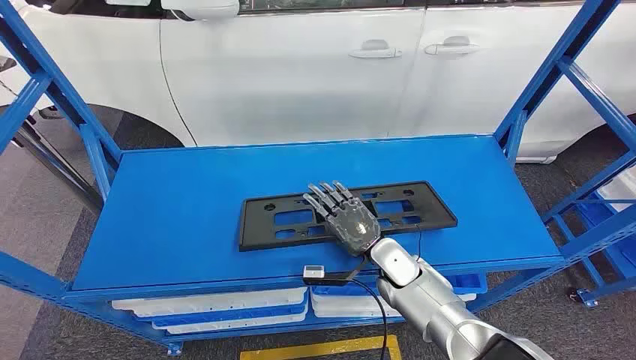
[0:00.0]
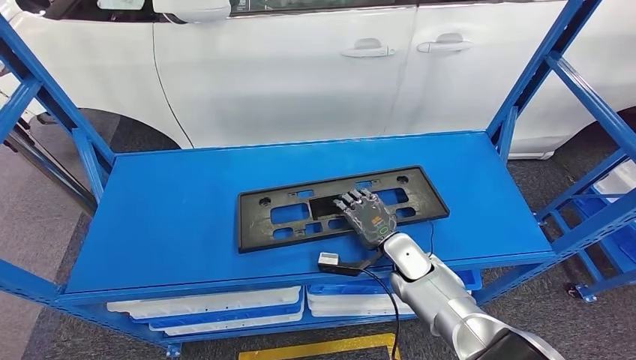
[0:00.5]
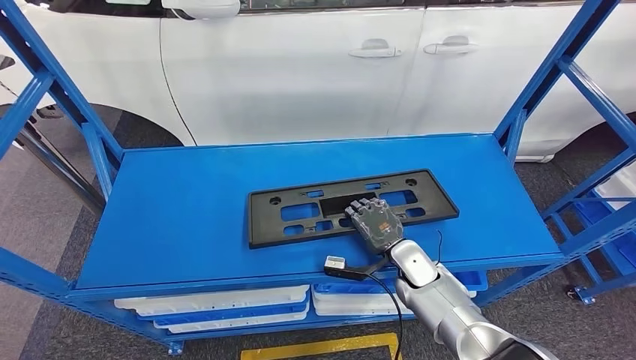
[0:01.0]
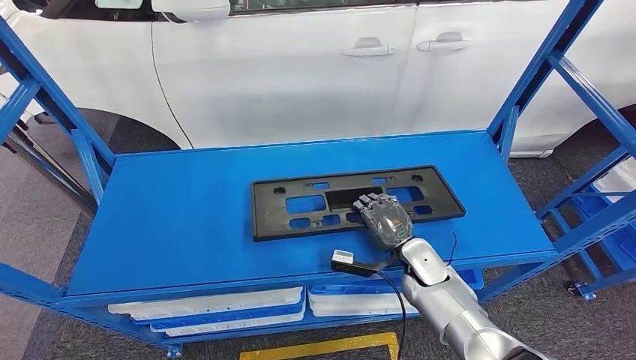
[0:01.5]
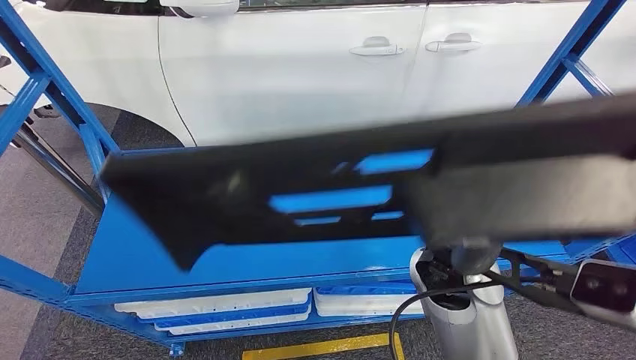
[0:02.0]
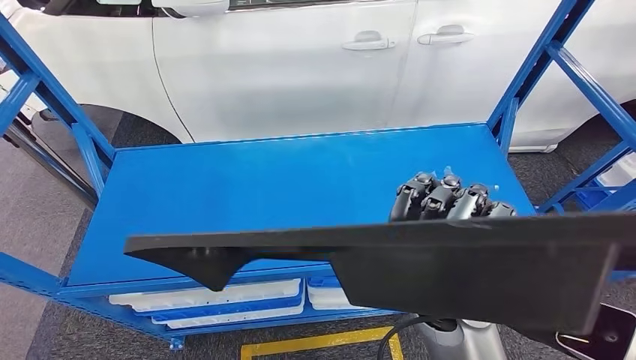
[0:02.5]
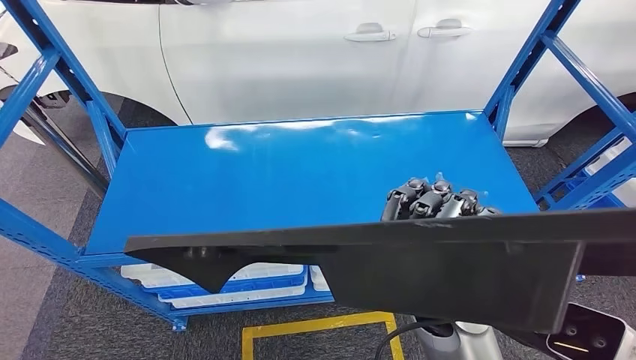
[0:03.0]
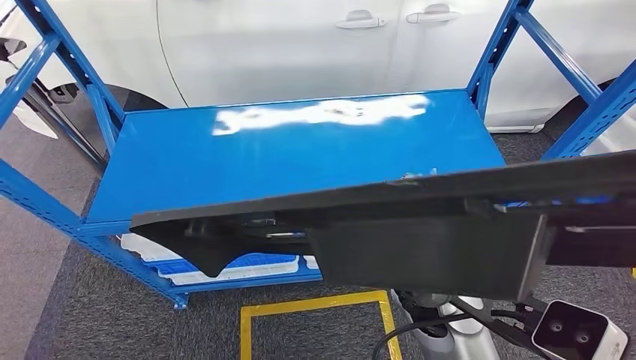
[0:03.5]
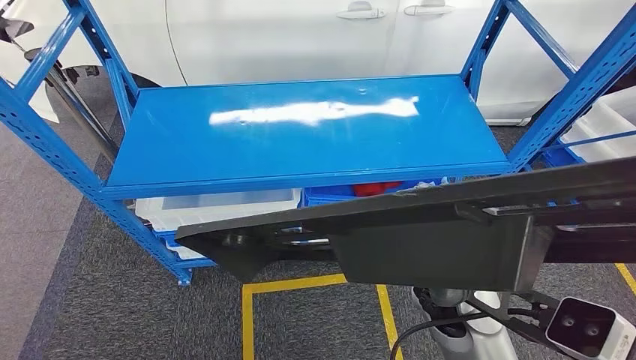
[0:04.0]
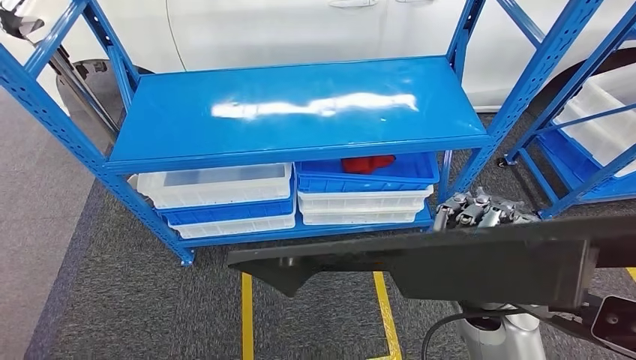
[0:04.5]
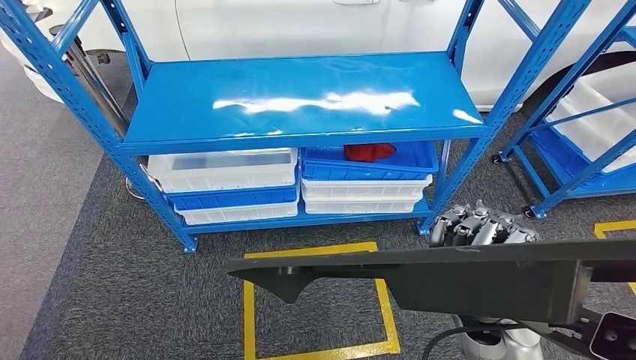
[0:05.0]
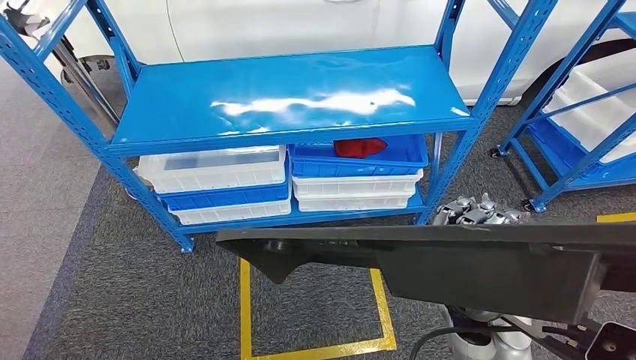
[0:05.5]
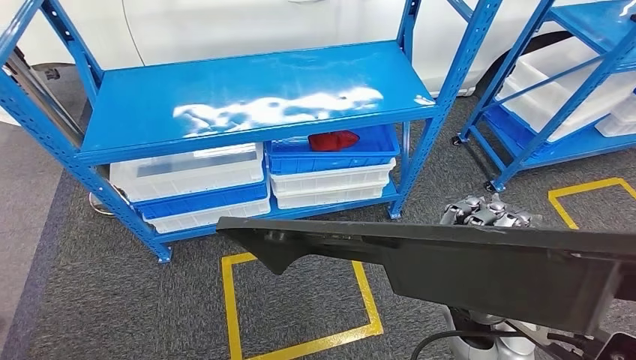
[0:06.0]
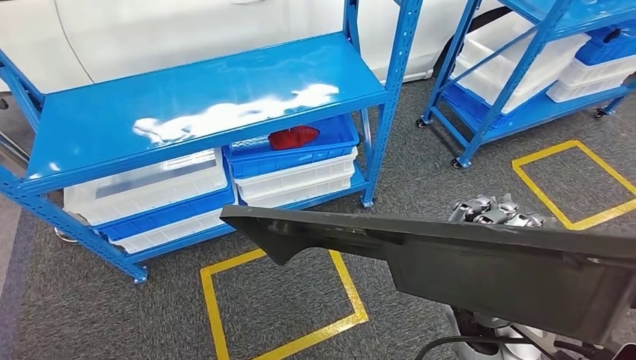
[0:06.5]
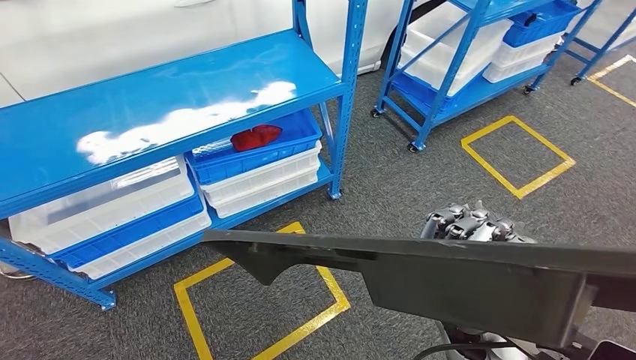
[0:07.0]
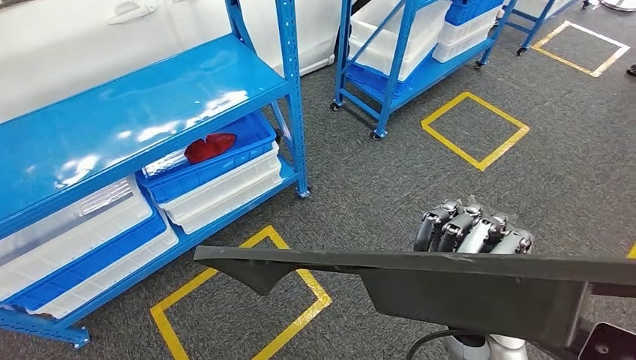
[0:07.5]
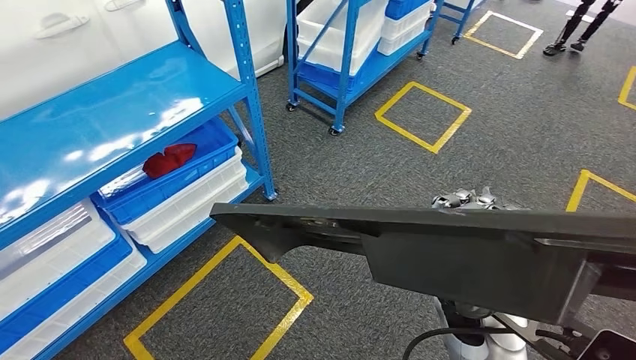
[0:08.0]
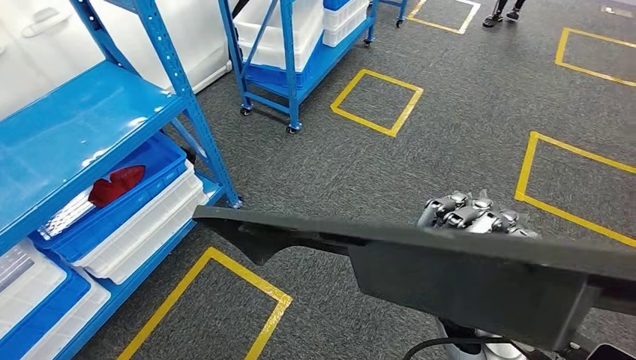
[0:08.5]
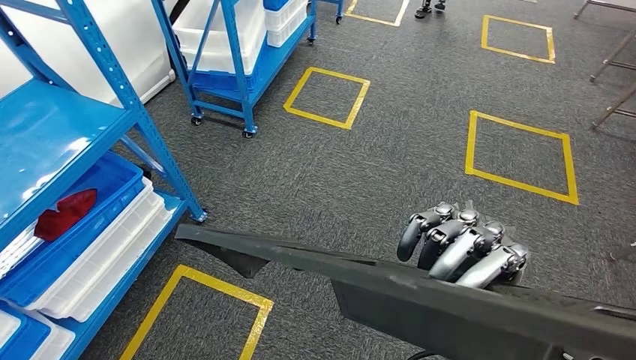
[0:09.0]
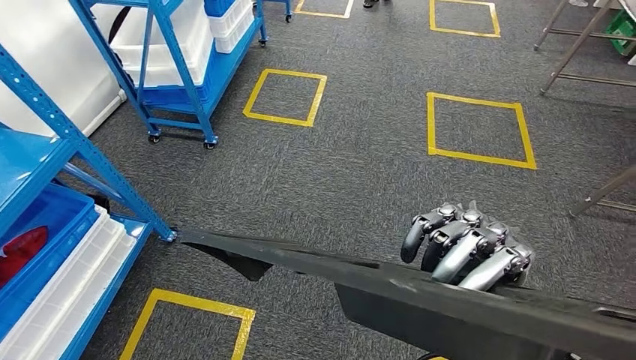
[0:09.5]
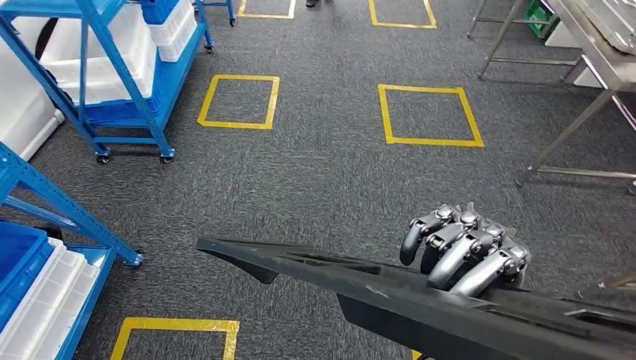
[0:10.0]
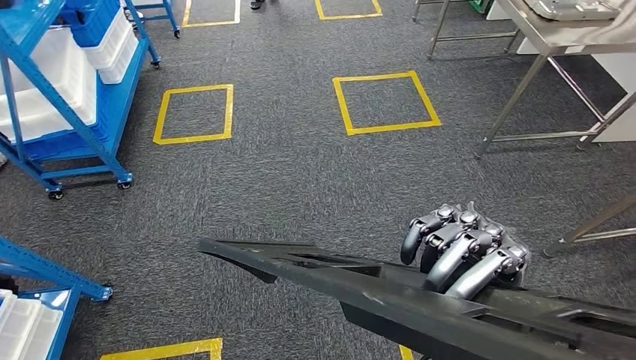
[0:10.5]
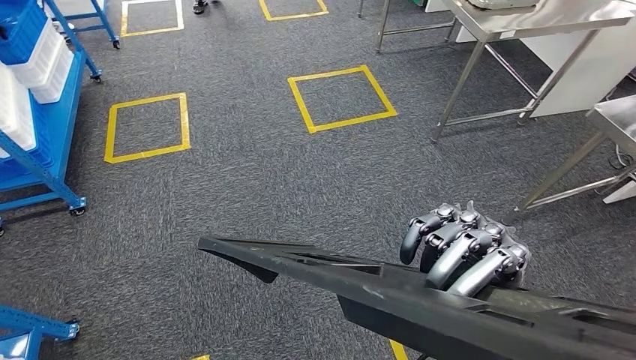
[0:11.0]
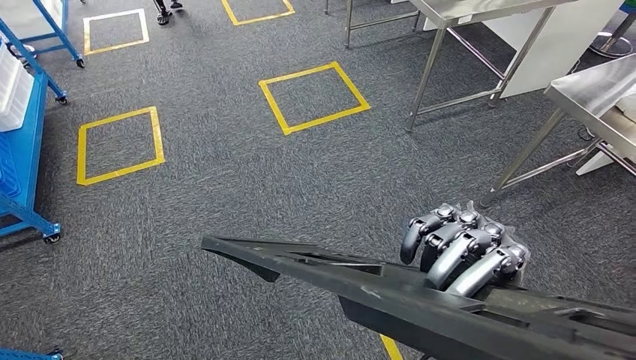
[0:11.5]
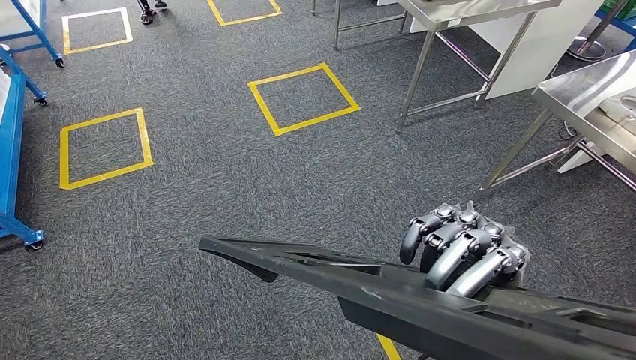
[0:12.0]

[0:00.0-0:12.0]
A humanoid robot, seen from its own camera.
Step, 0:00.0 to 0:03.5: Pick up the large material from the shelf.

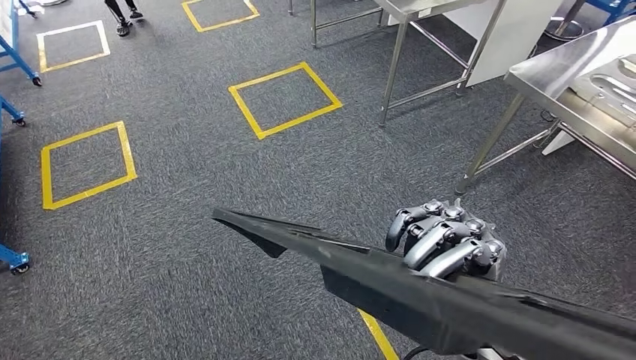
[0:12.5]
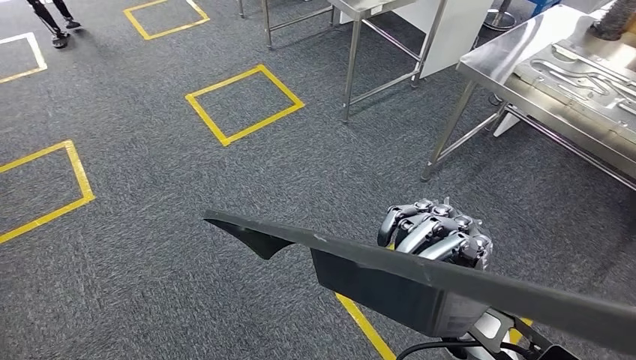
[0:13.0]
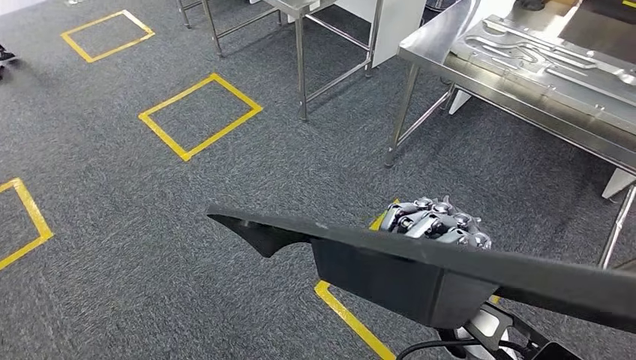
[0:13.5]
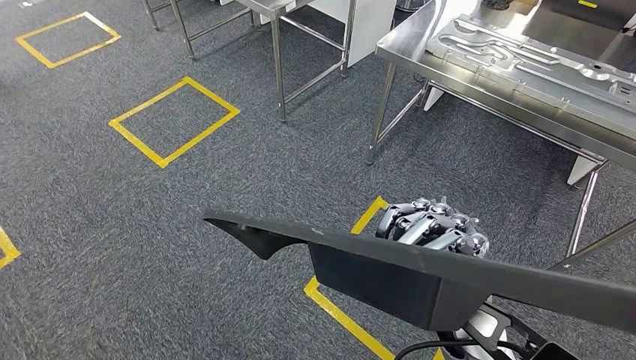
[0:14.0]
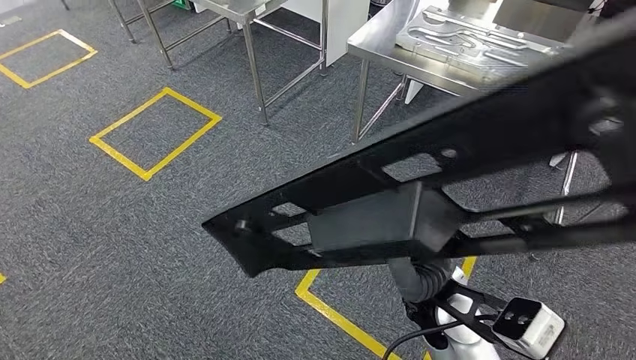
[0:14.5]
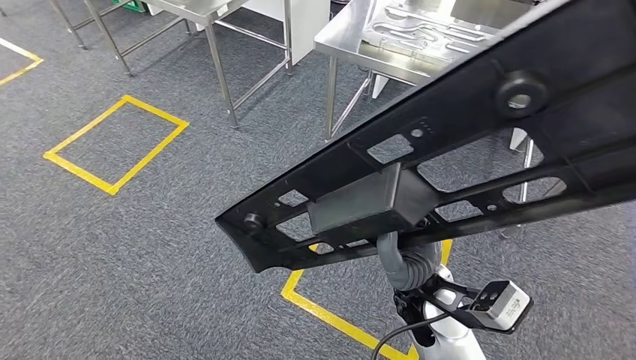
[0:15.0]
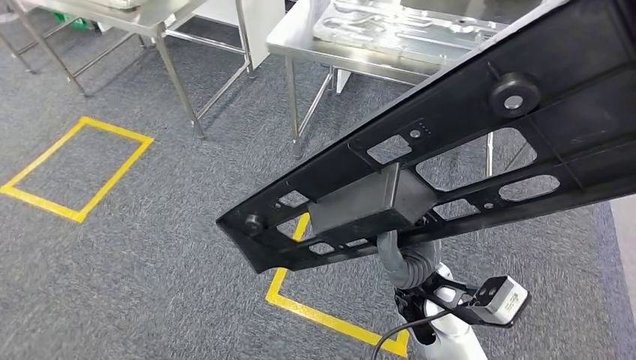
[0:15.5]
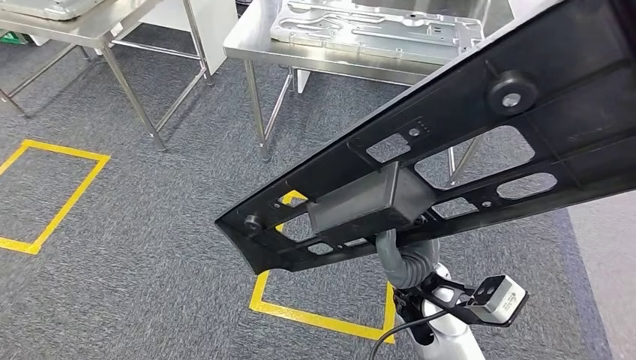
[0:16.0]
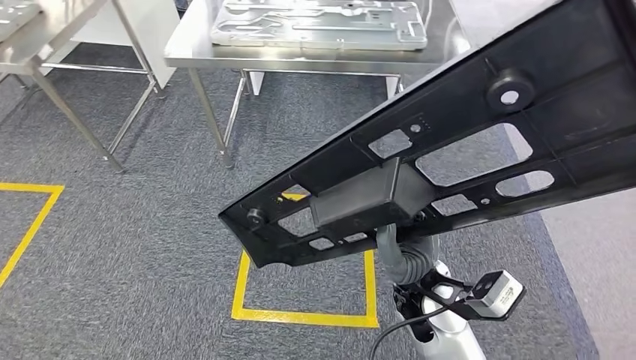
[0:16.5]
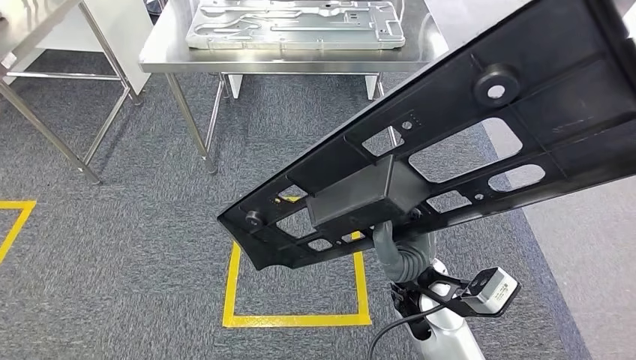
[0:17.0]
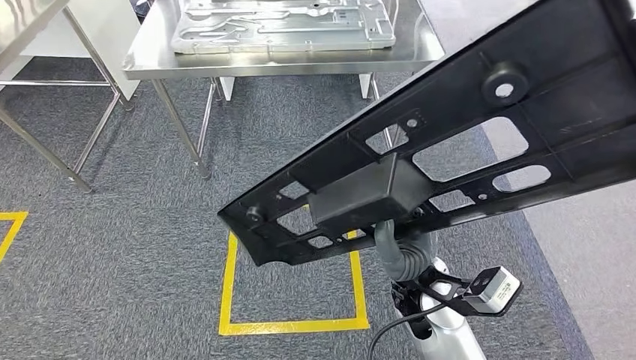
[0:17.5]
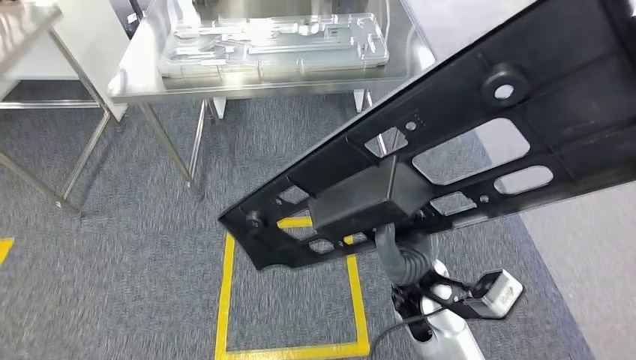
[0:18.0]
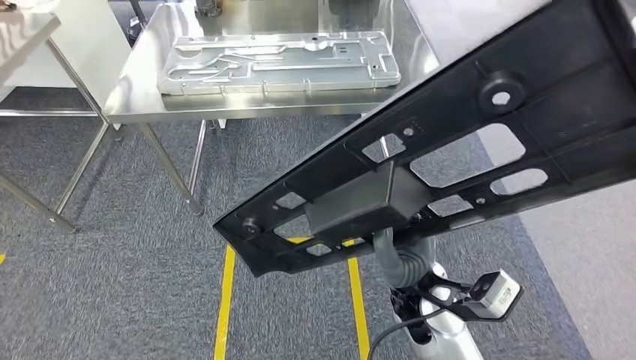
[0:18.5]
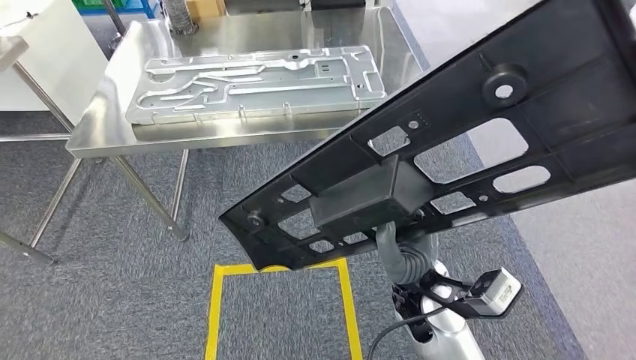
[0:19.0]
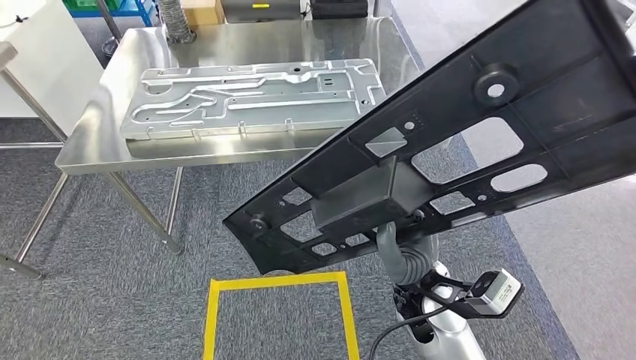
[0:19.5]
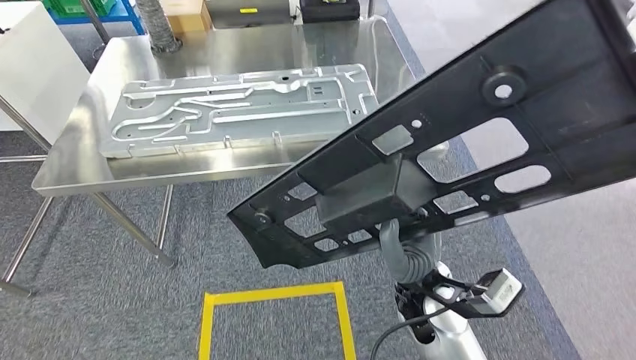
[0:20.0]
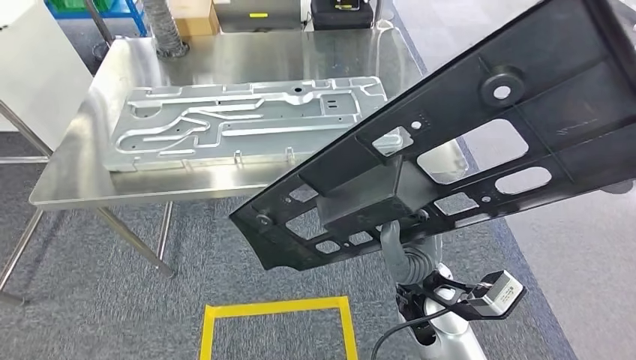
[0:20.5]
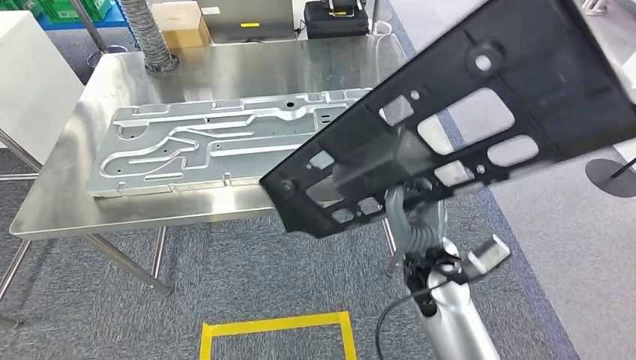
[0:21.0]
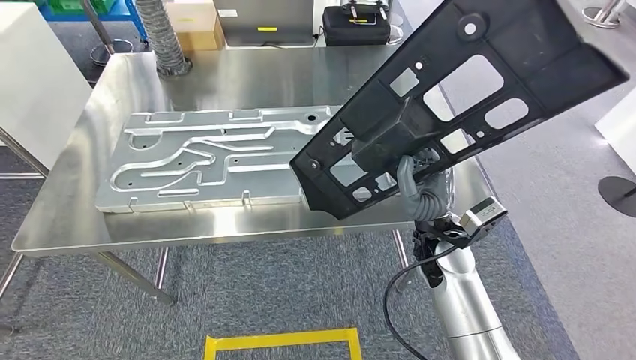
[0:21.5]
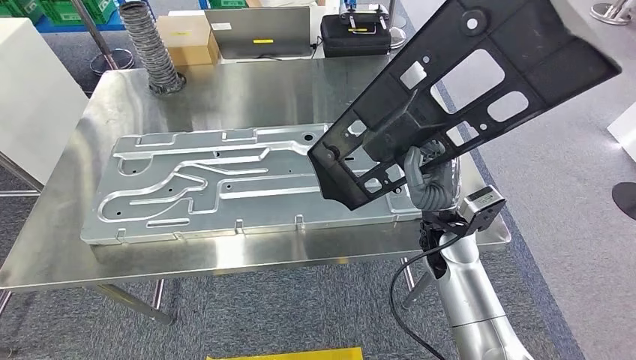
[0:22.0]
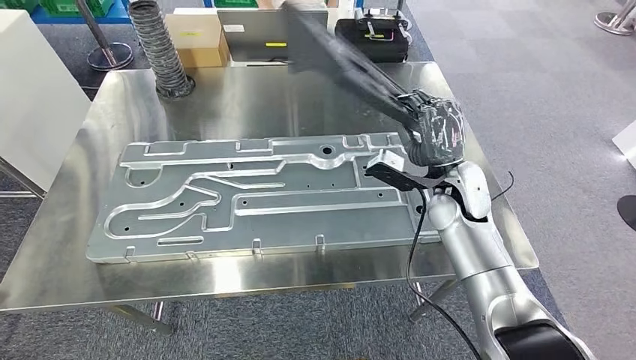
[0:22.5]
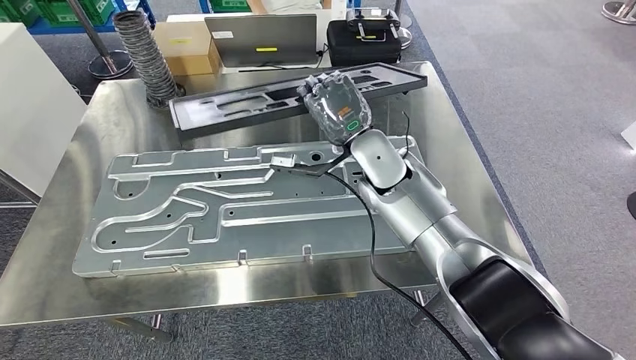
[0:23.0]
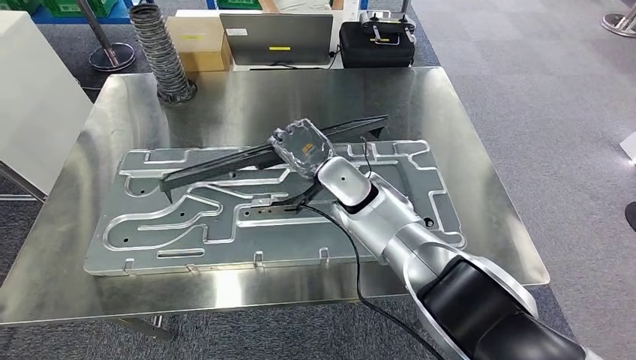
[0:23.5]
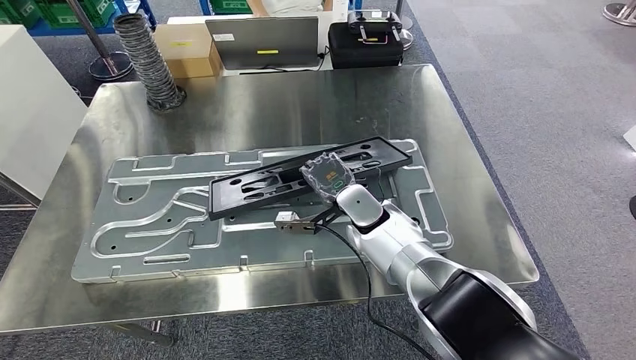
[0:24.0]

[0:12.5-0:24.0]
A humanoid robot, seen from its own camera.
Step, 0:12.5 to 0:20.5: Move the large material to the workbench.
